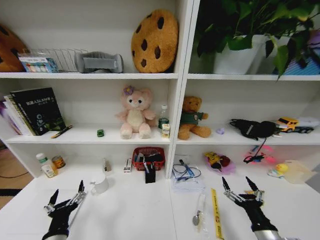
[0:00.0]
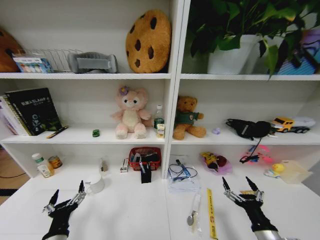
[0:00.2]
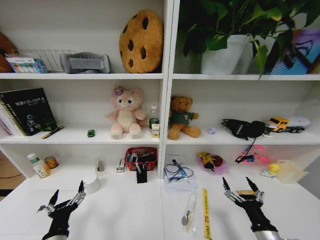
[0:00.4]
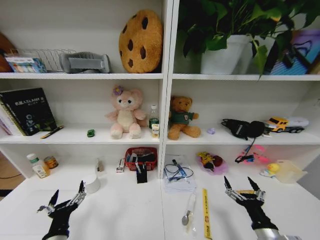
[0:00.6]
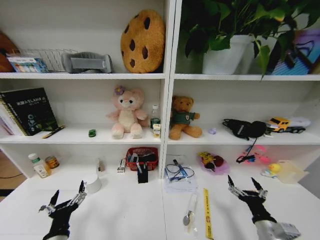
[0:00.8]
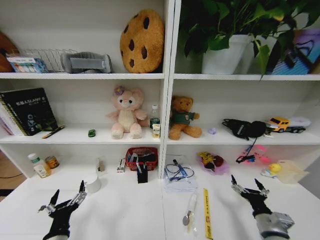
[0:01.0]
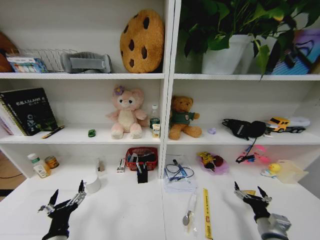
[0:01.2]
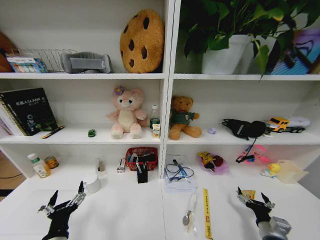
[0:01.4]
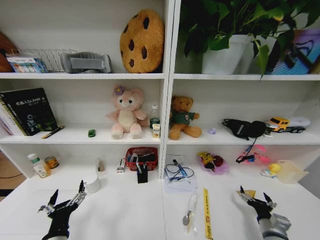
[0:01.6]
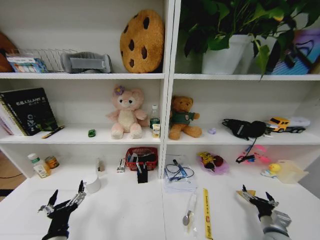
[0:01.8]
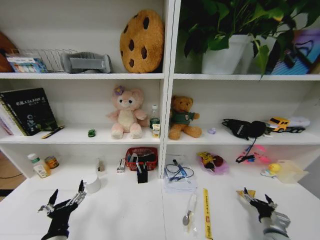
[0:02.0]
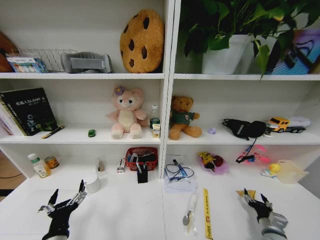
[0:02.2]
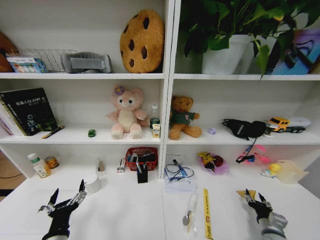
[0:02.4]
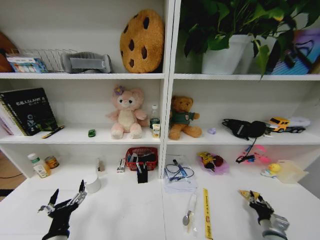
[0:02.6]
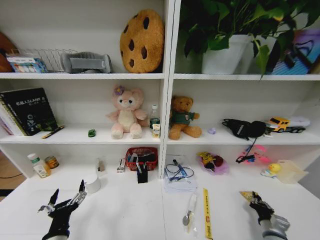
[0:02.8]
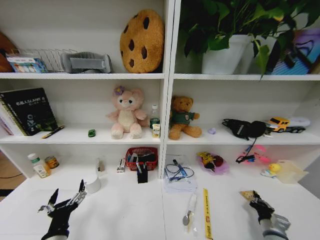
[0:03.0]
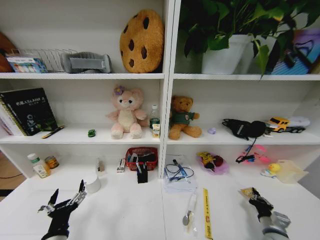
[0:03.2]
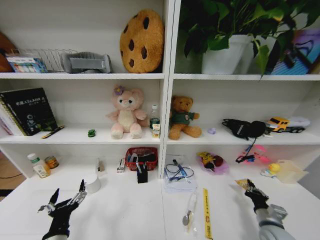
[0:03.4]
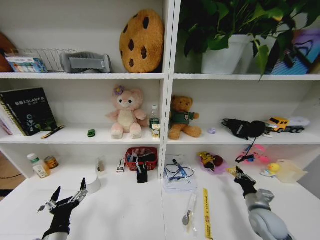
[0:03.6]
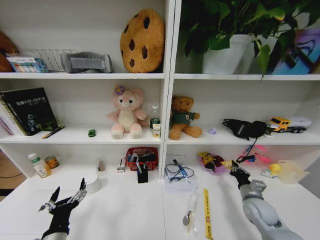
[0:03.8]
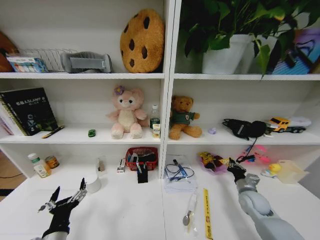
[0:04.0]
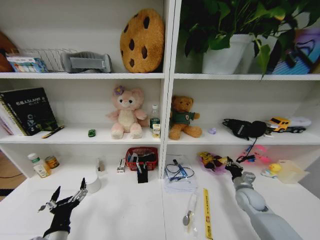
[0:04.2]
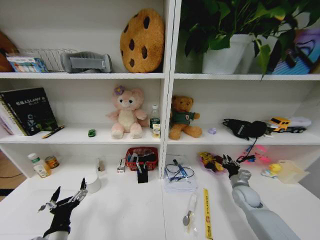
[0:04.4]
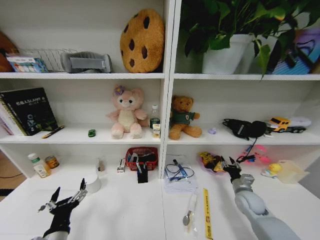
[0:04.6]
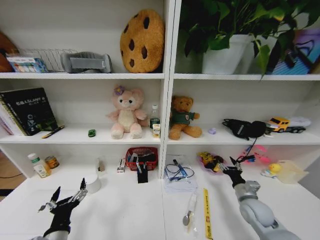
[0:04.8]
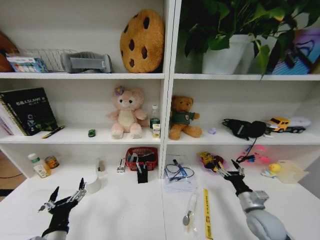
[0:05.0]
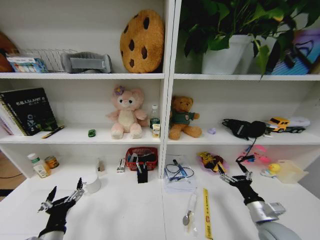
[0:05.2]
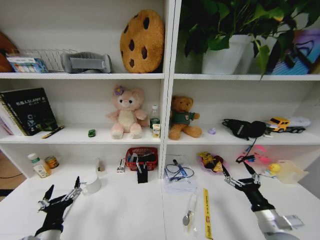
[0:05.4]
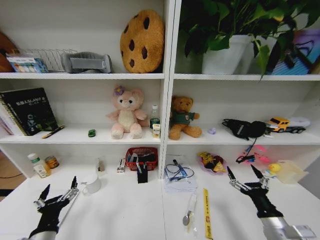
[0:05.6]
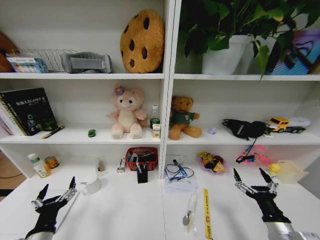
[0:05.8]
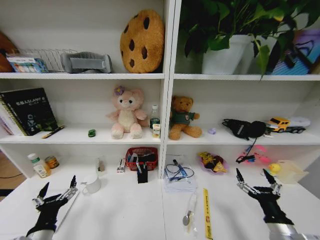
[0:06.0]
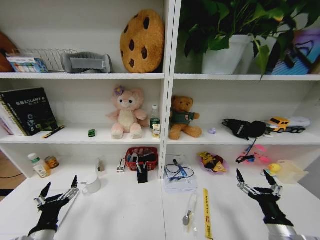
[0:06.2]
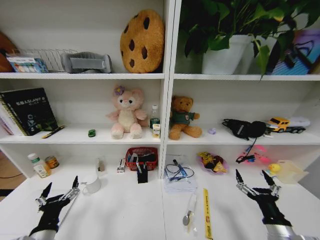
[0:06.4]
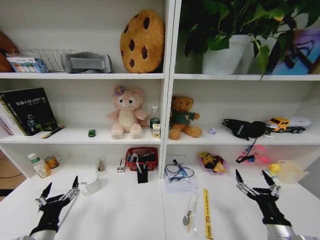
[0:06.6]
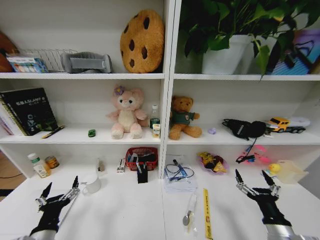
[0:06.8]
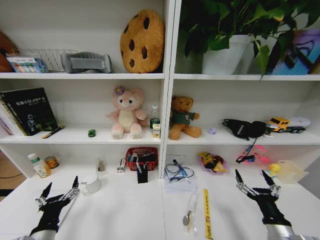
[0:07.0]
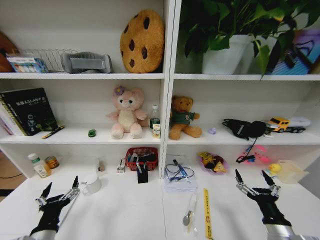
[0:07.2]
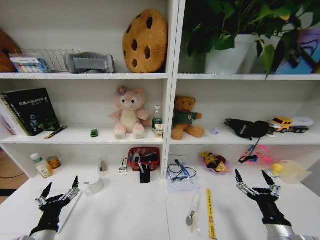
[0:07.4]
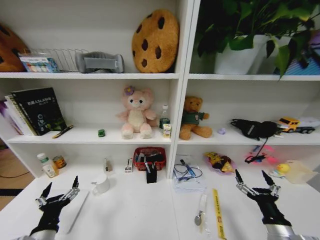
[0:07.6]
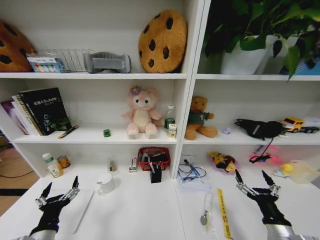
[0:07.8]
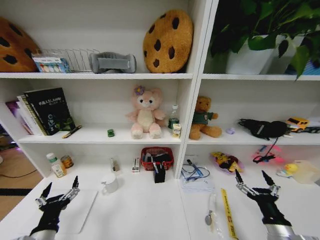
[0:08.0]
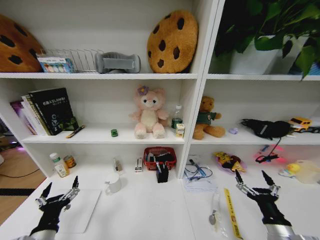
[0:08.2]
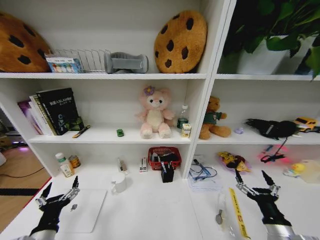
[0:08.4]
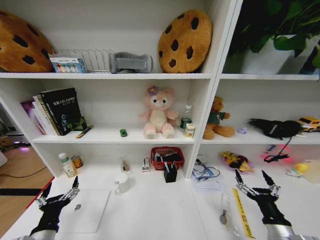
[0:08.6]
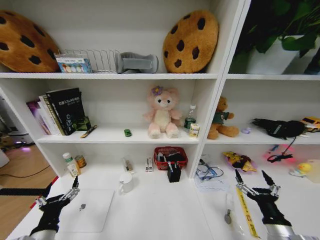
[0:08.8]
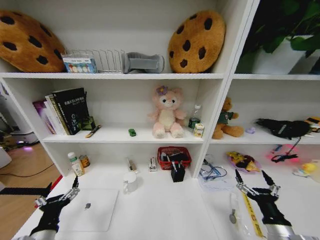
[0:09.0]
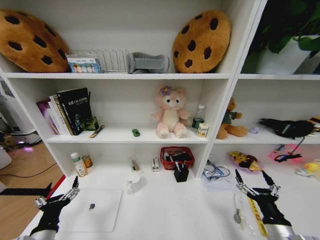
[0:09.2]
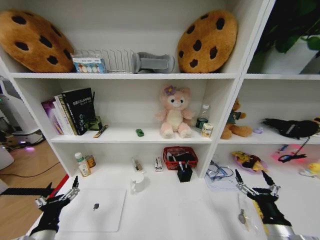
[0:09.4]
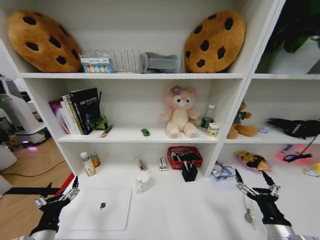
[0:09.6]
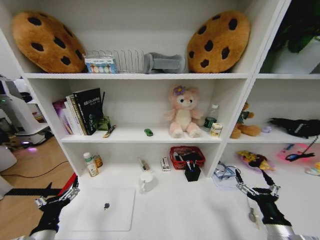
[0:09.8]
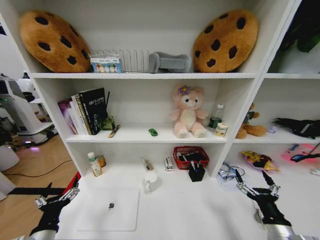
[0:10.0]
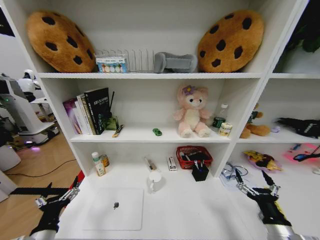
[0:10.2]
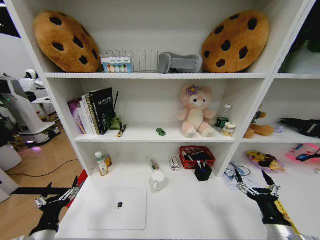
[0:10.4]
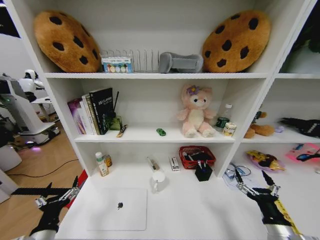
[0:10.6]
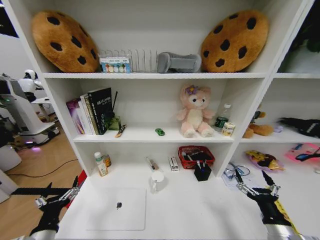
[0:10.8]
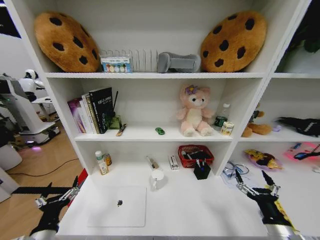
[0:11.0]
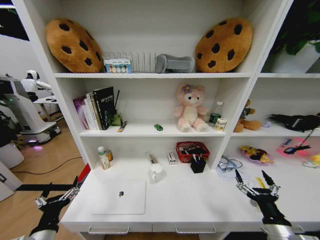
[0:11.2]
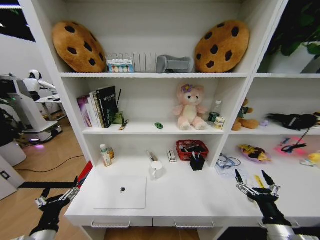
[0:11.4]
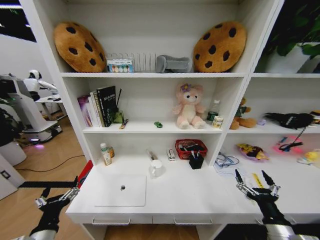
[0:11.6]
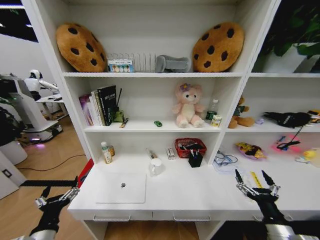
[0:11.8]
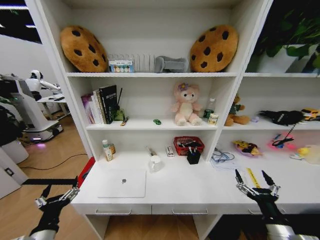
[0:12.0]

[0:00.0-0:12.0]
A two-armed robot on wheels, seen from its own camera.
Task of the whole recording: Organize the objects on the table.
0:00.0 to 0:01.6: The right gripper shifts some 15 cm to the right, downward and forward.
0:01.6 to 0:03.0: The right gripper closes.
0:03.0 to 0:04.4: The right gripper heads forward, covering roughly 15 cm.
0:04.4 to 0:06.0: The right gripper heads backward, covering approximately 20 cm, and opens.

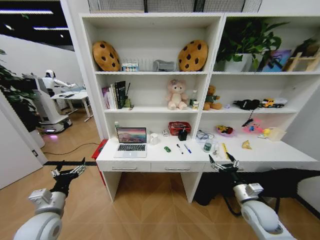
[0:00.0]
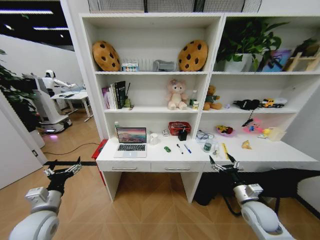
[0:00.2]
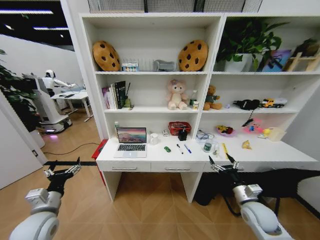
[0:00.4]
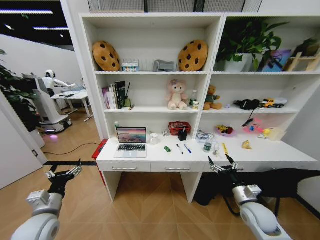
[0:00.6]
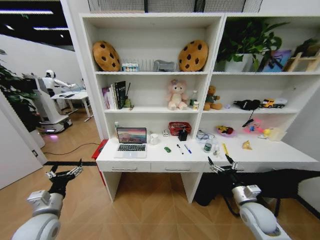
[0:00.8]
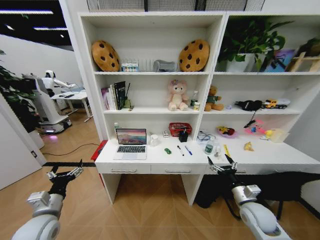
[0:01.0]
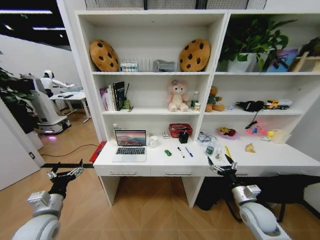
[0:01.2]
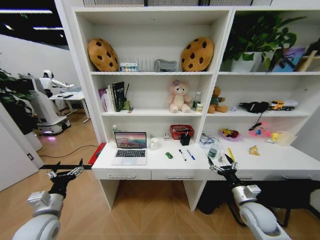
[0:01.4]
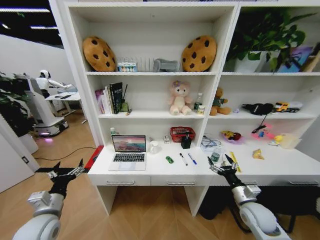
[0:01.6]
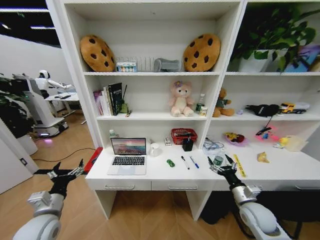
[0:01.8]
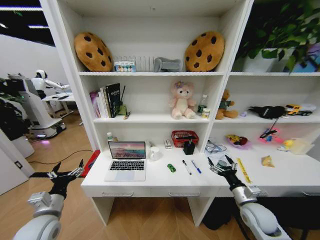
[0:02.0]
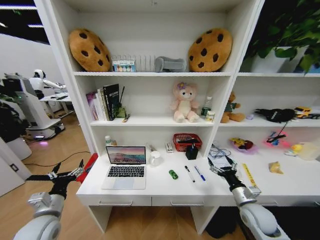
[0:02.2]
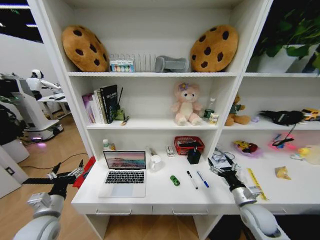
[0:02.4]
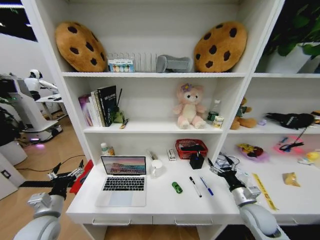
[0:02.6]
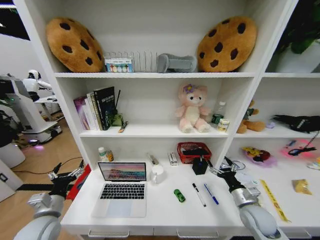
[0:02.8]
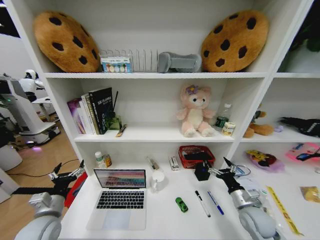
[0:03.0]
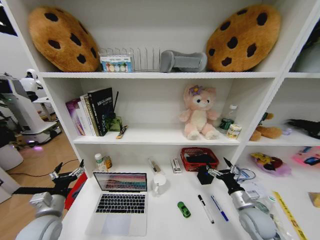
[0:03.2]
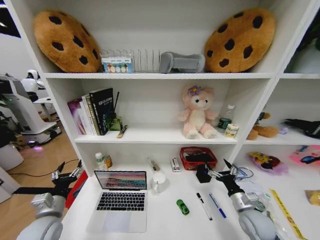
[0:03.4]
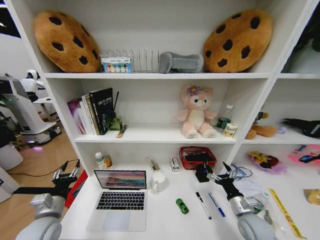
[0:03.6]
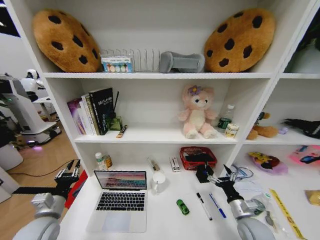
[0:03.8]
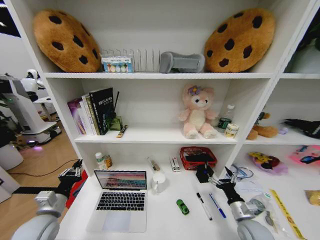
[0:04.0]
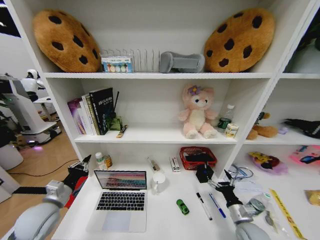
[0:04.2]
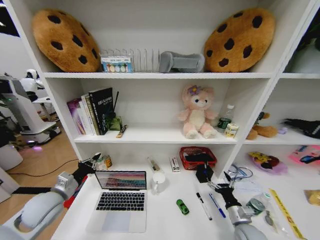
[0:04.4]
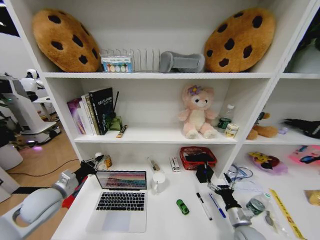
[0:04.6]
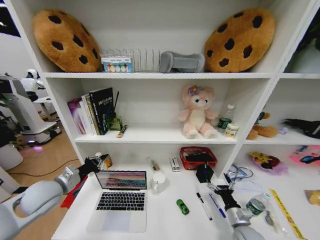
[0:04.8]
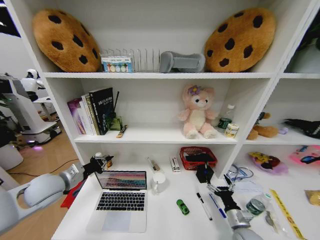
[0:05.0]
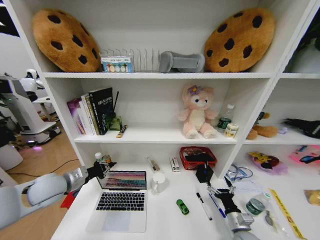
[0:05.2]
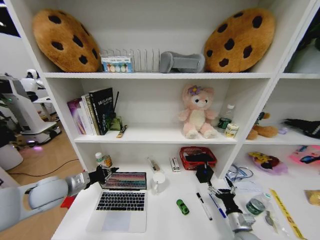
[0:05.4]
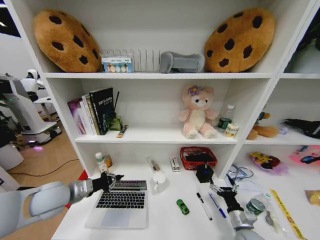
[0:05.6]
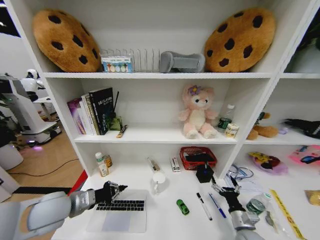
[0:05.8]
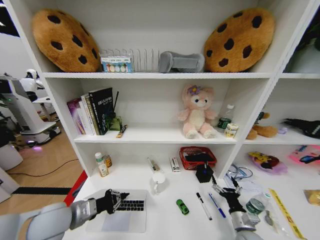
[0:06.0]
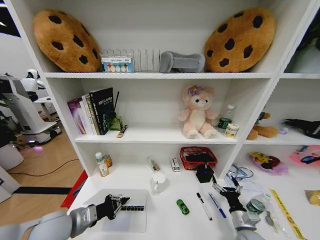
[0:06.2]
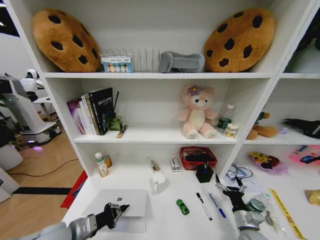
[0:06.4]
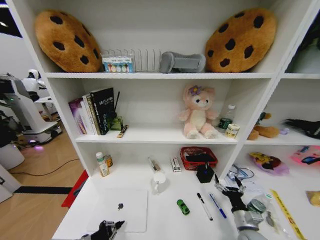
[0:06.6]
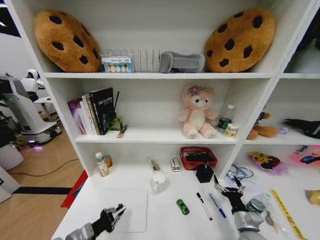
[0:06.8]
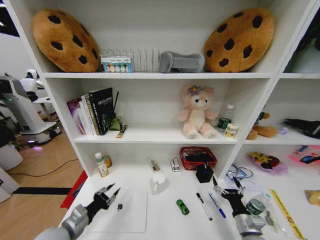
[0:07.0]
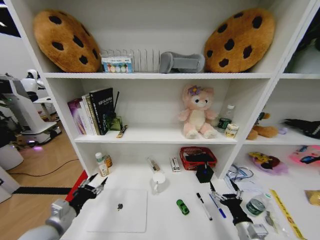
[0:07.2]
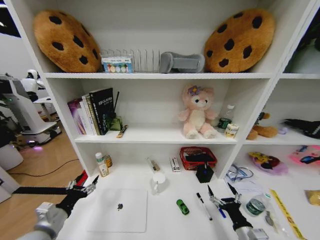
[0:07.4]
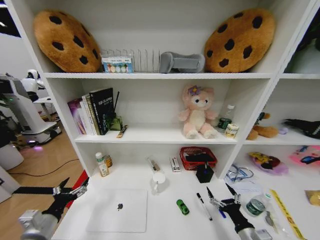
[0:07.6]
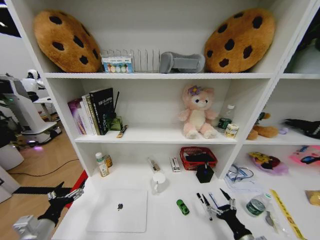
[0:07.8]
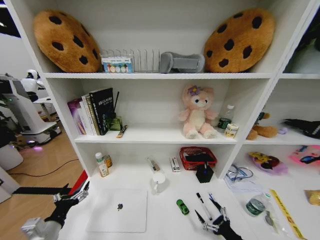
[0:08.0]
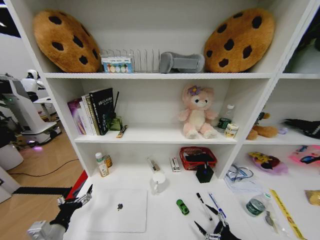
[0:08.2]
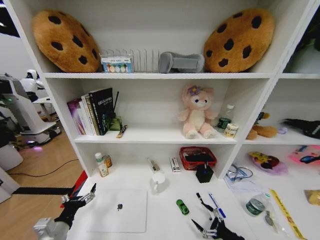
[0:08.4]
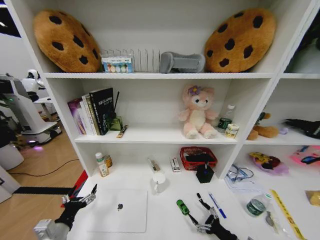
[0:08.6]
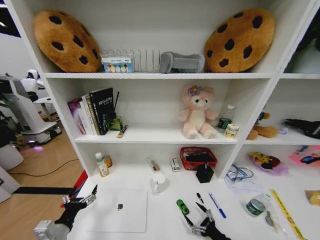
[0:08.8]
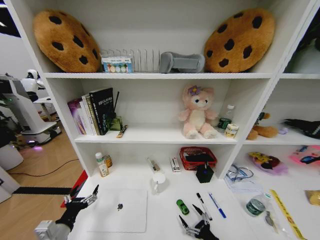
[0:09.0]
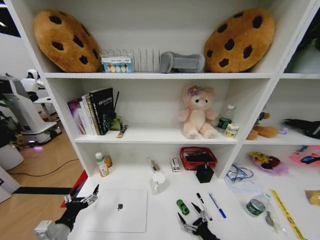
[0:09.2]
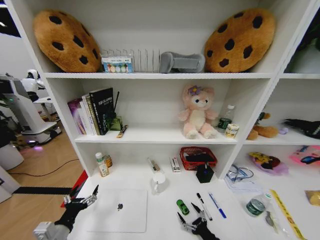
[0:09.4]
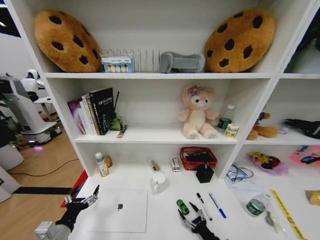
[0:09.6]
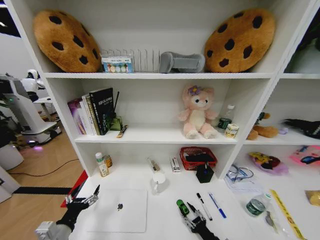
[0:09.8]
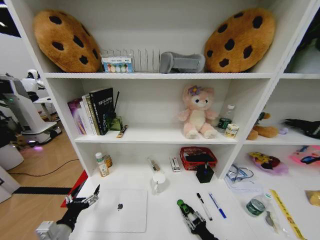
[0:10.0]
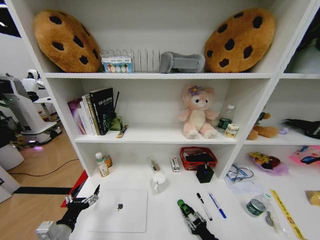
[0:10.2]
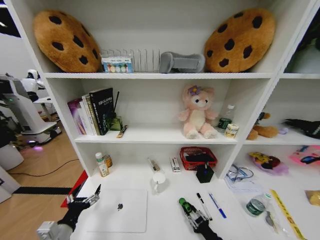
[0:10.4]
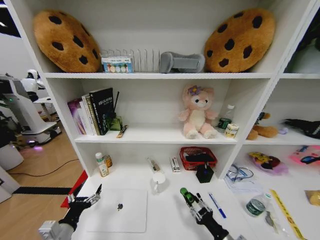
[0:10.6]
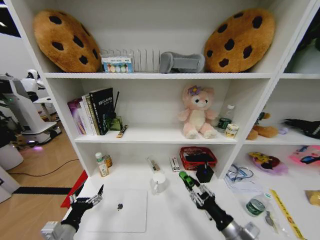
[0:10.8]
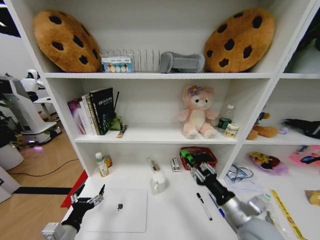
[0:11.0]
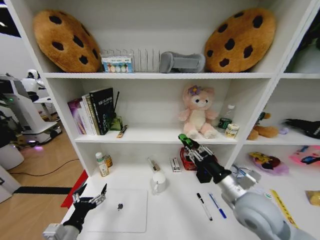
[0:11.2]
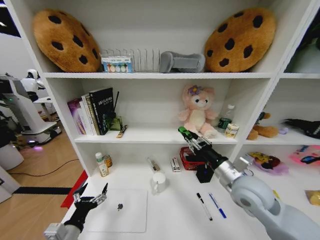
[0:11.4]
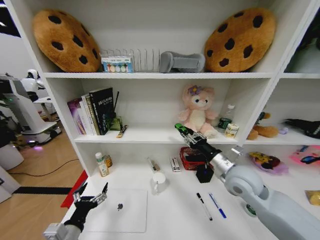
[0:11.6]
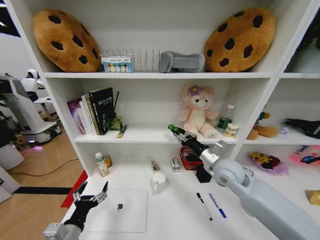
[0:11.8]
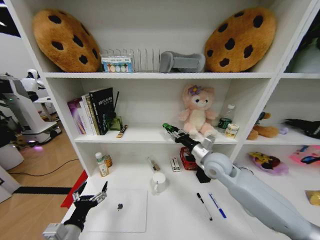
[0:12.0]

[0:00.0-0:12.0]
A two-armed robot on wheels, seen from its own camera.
Task of the whole recording: Organize the objects on the table.
0:03.0 to 0:04.4: The left gripper travels forward by about 5 cm, and closes; the right gripper travels downward by roughly 5 cm.
0:04.4 to 0:06.0: The left gripper moves to the right, about 5 cm.
0:06.0 to 0:07.6: The right gripper goes approximately 5 cm backward; the left gripper shifts some 10 cm to the left, backward and downward, and opens its fingers.
0:07.6 to 0:09.0: The right gripper heads downward, covering roughly 10 cm. Meanwhile the left gripper moves approximately 5 cm.
0:09.0 to 0:10.4: The right gripper closes its fingers.
0:10.4 to 0:12.0: The right gripper travels upward and forward by about 40 cm.
